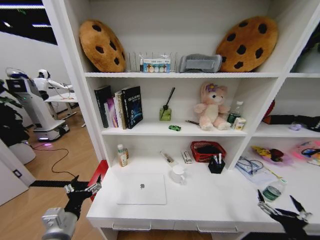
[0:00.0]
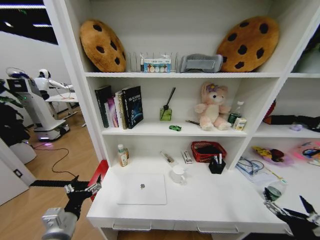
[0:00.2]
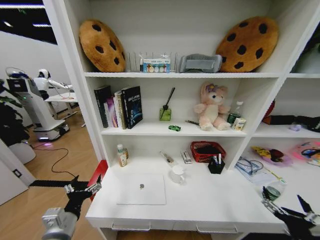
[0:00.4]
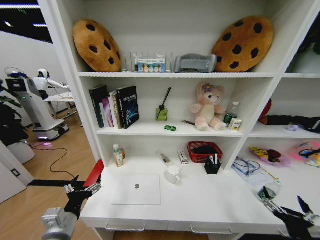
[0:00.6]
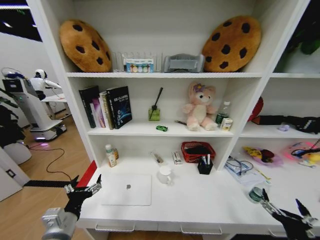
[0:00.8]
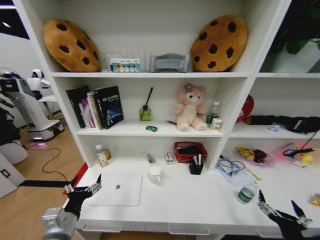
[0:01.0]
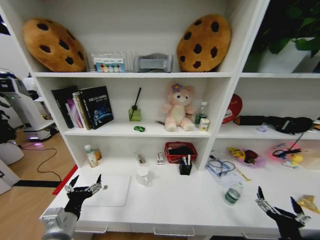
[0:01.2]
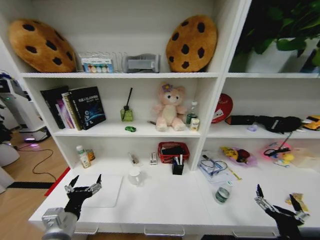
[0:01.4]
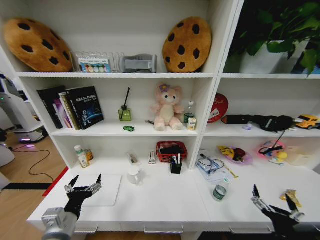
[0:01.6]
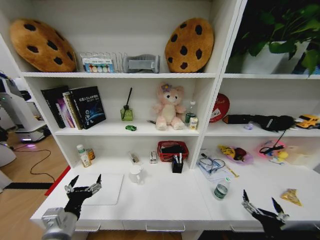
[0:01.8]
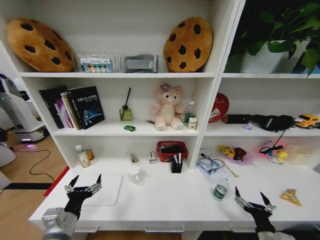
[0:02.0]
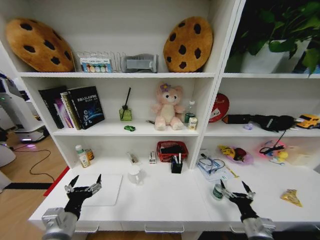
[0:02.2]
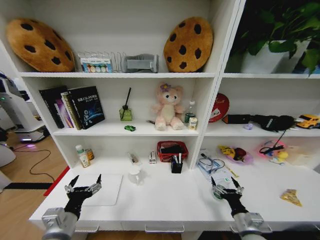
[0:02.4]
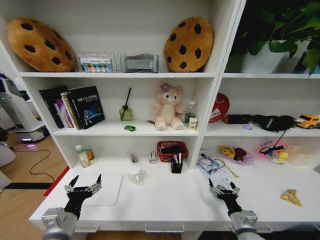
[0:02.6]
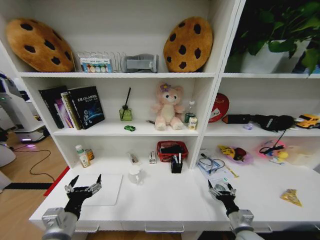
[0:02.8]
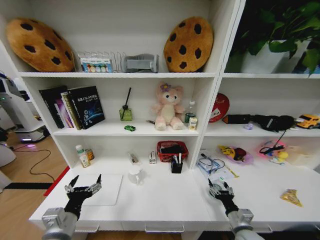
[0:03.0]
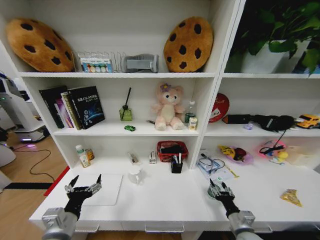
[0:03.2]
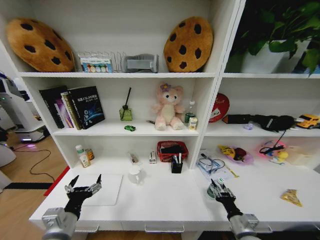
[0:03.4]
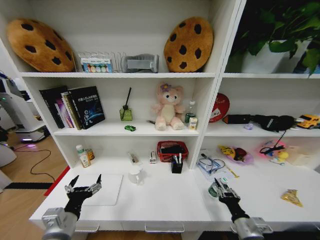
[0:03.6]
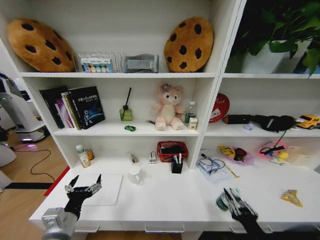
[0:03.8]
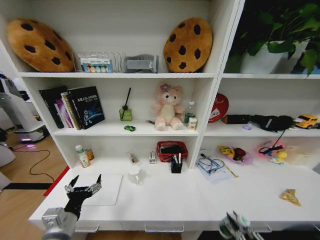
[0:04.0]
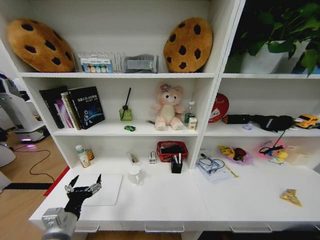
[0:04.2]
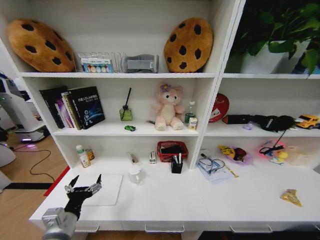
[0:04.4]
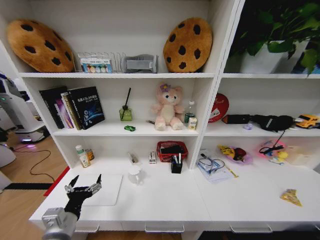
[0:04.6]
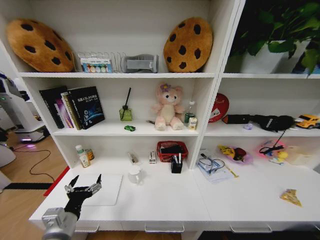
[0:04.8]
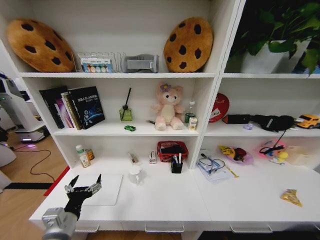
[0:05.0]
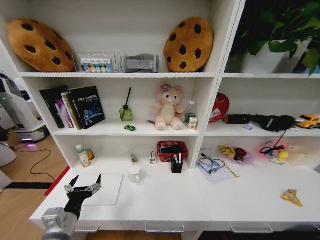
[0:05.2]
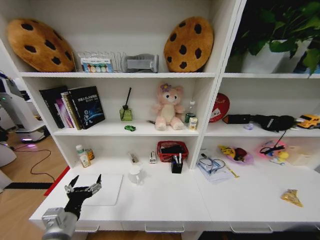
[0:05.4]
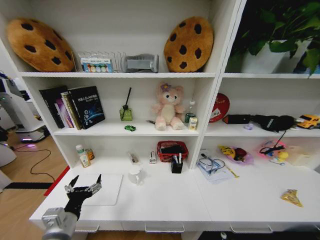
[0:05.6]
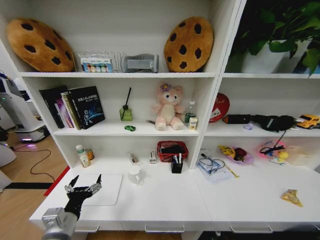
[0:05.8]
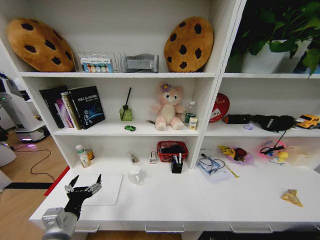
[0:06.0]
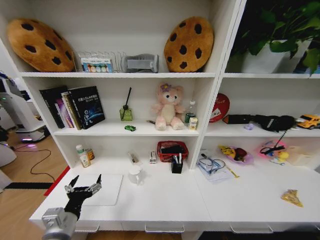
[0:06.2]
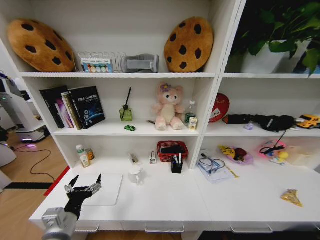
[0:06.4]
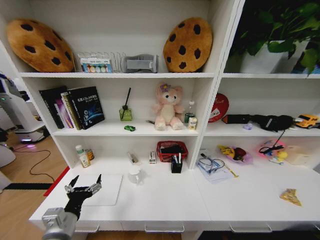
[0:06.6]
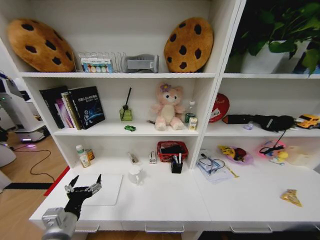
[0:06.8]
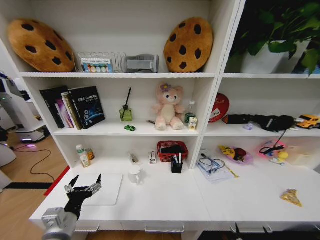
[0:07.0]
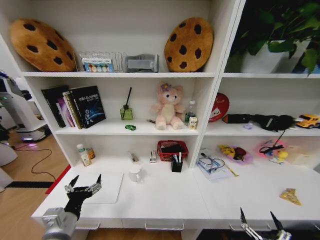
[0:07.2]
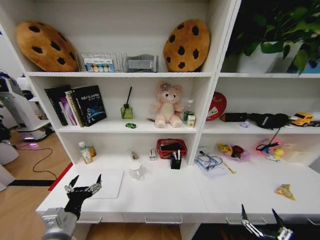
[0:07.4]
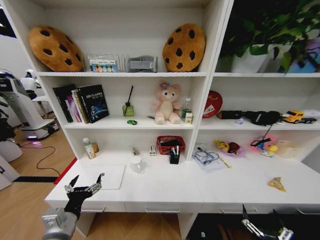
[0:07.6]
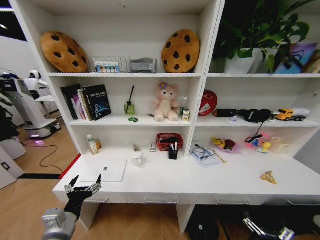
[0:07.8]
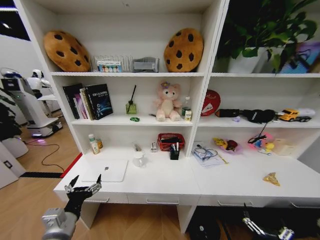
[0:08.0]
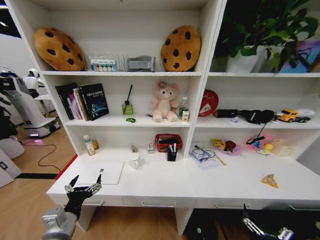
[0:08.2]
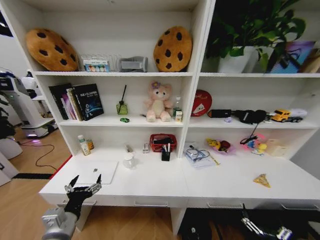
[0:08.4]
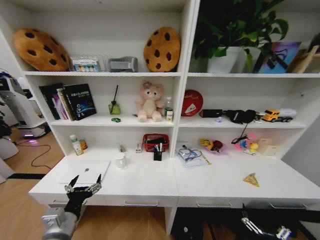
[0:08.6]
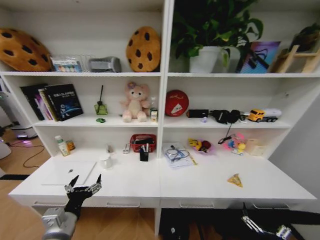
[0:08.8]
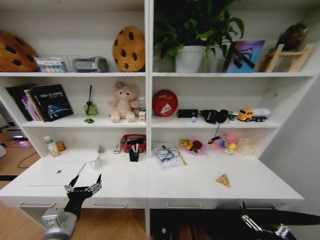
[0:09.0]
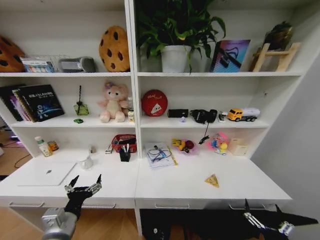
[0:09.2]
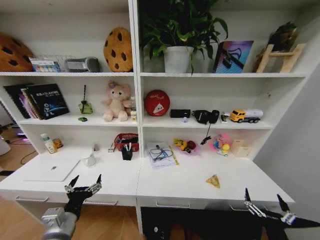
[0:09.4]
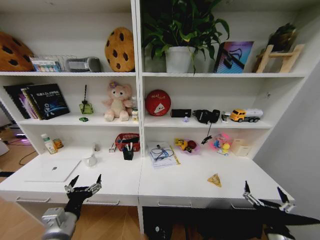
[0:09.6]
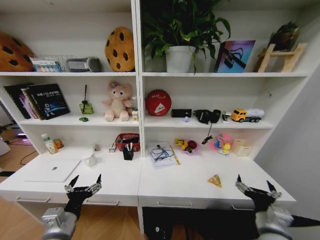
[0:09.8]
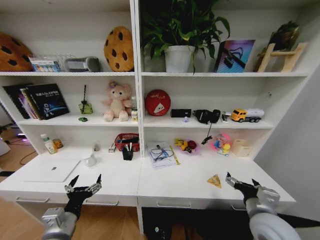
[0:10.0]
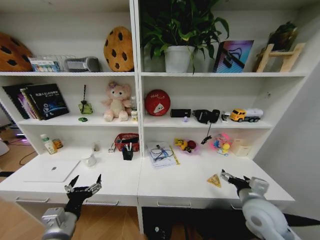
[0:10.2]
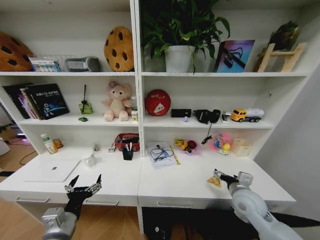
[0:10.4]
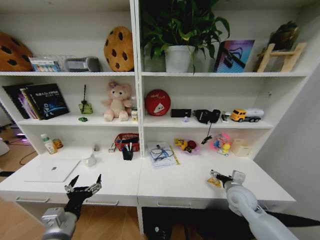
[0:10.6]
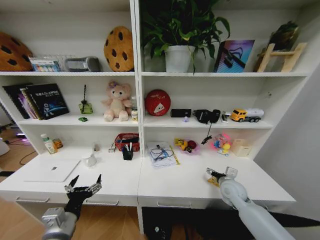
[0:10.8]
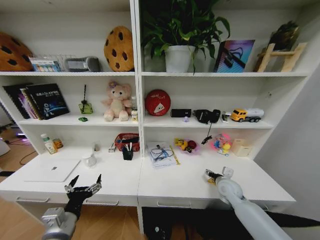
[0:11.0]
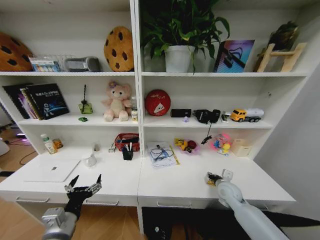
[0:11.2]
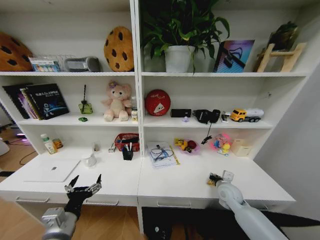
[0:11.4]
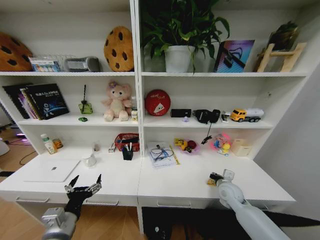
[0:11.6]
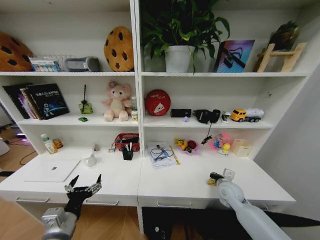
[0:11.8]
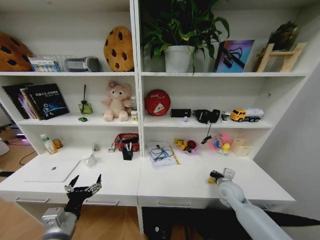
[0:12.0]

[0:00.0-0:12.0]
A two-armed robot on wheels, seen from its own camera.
Task of the whole recording: Organize the objects on the table.
0:01.6 to 0:03.0: The right gripper heads forward and downward, covering approximately 15 cm.
0:03.0 to 0:04.4: The right gripper shifts approximately 30 cm backward, and closes.
0:04.4 to 0:06.0: The right gripper goes about 30 cm downward and forward, and opens.
0:06.0 to 0:07.6: The right gripper heads upward, covering approximately 25 cm.
0:09.0 to 0:10.4: The right gripper goes approximately 30 cm forward and upward.
0:10.4 to 0:12.0: The right gripper heads downward and forward, covering approximately 10 cm, and closes its fingers.

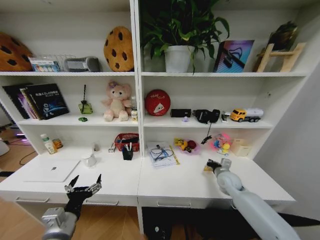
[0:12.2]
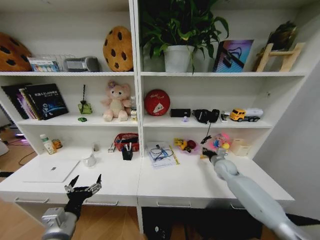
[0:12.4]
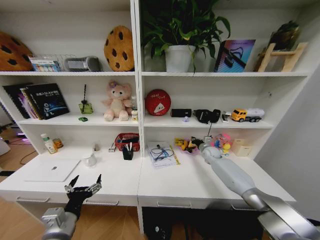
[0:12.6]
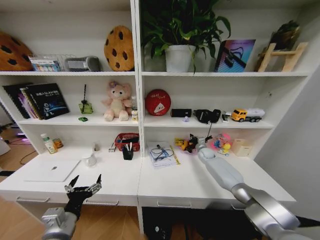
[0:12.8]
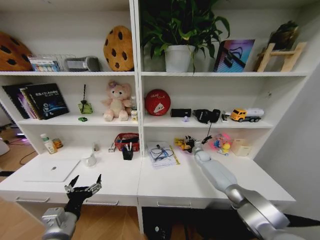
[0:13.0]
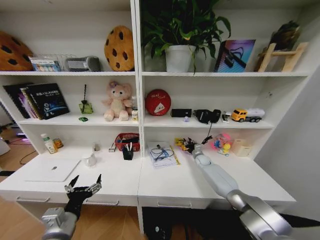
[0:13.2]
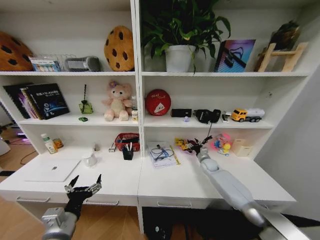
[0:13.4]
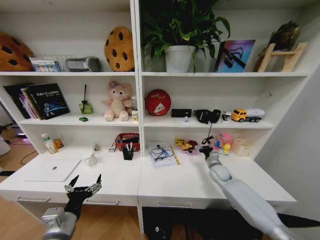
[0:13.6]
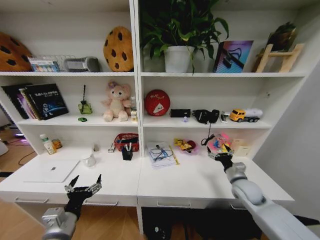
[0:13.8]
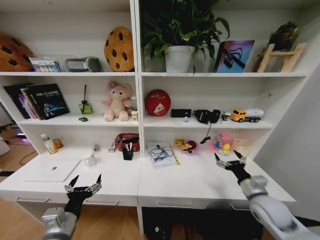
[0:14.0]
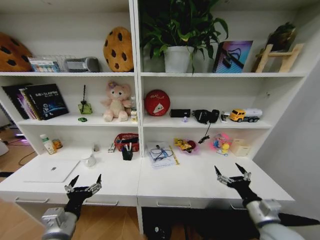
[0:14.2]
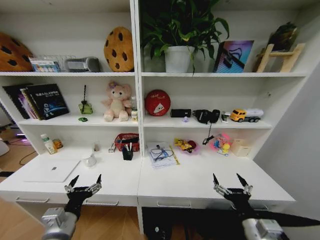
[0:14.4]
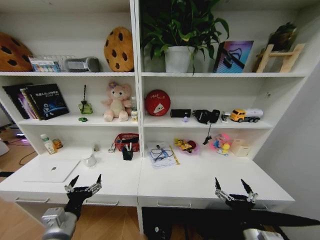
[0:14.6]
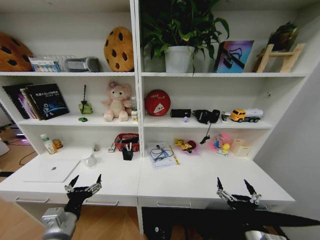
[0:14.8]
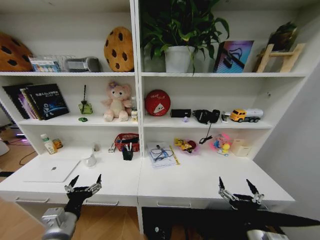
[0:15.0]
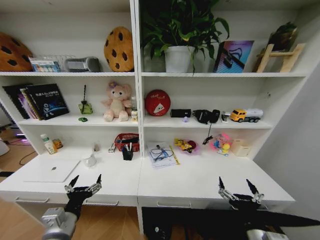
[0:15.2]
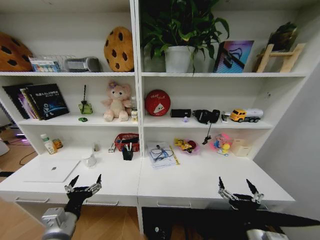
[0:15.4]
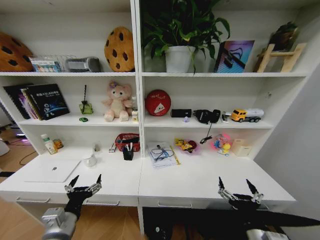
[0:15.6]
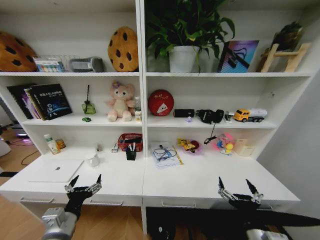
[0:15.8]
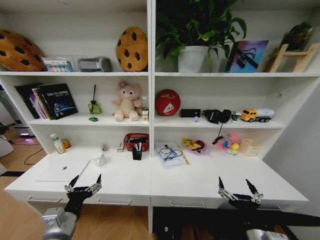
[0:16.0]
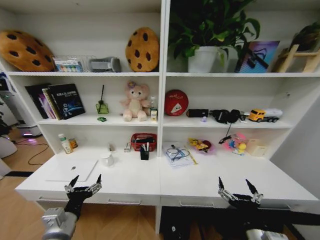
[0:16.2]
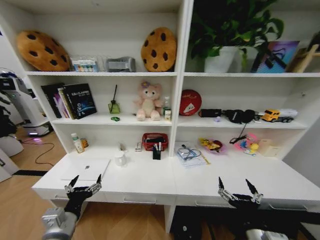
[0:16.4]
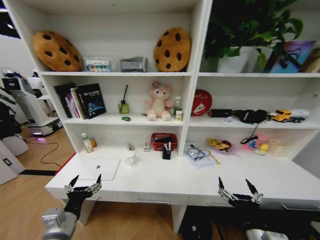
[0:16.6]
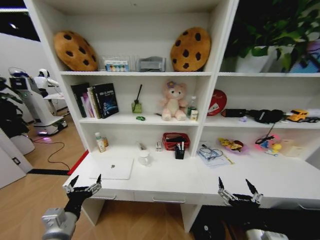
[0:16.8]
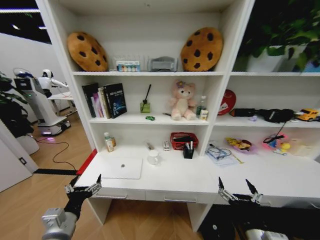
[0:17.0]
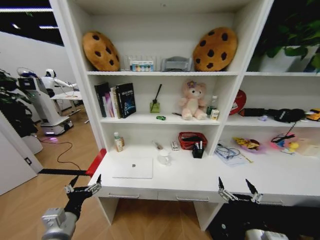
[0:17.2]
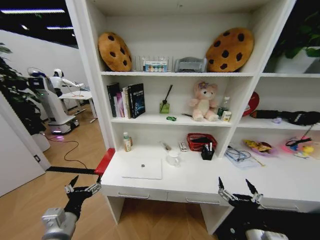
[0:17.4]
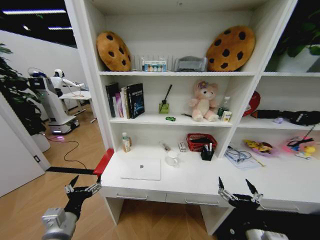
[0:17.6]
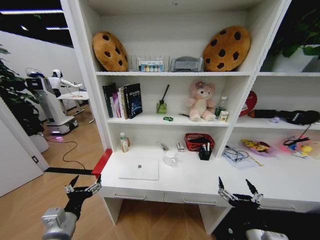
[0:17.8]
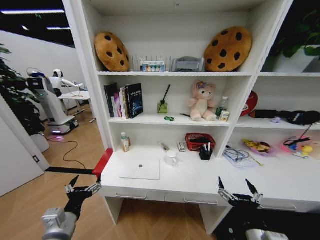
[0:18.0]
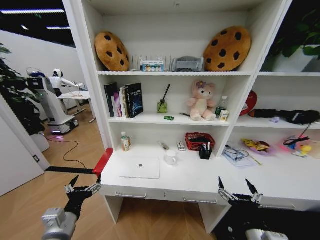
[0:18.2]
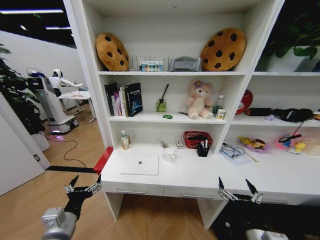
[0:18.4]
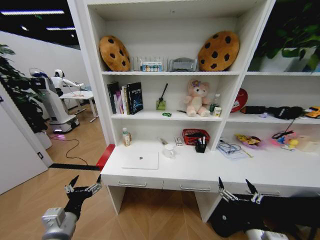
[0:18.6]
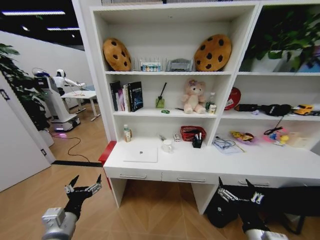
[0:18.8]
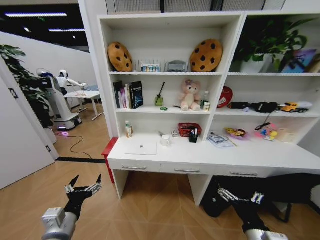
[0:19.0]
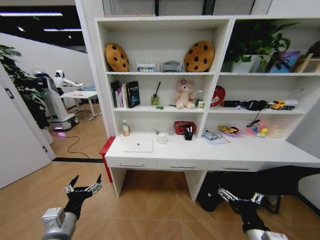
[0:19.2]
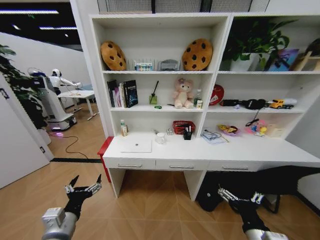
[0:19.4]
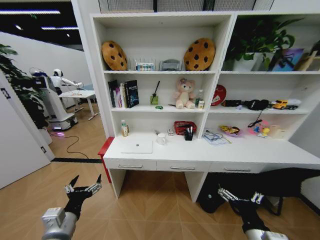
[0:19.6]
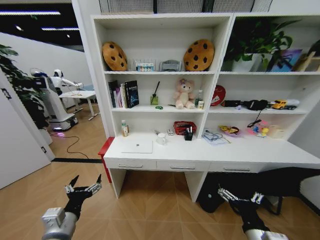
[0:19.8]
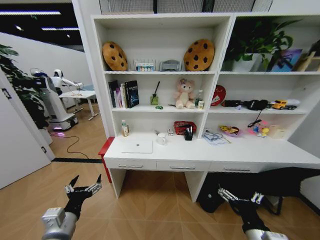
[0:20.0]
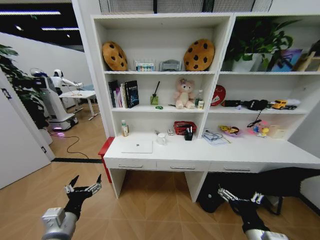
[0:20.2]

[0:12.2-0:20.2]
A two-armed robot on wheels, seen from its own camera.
Task of the whole recording: Organize the objects on the table.
0:12.2 to 0:13.8: The right gripper goes forward and returns, roughly 20 cm each way, and opens.
0:13.8 to 0:15.4: The right gripper heads backward and to the left, covering roughly 25 cm.

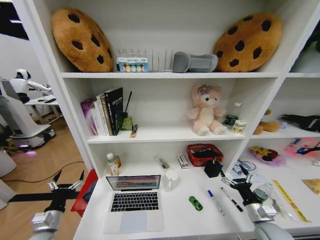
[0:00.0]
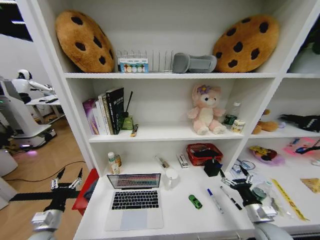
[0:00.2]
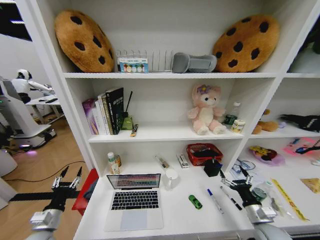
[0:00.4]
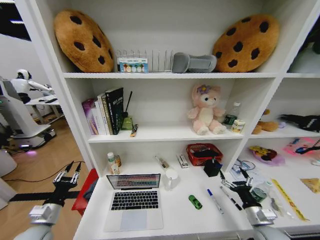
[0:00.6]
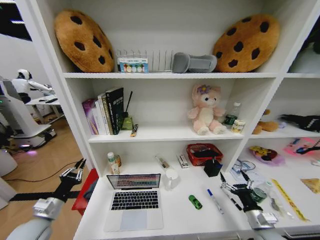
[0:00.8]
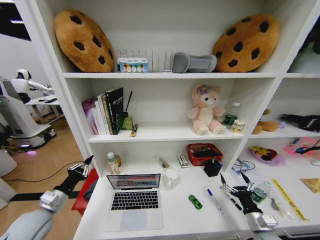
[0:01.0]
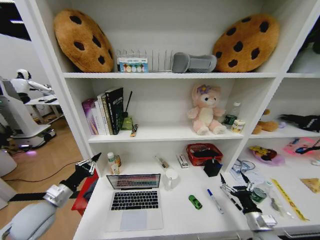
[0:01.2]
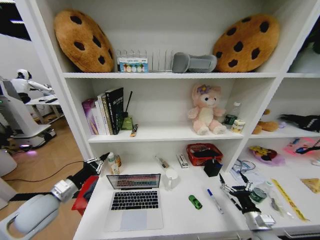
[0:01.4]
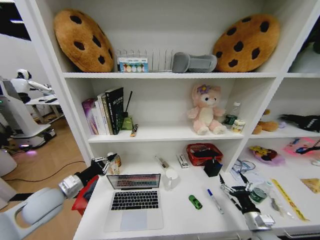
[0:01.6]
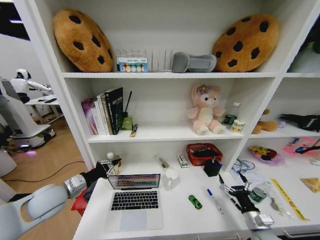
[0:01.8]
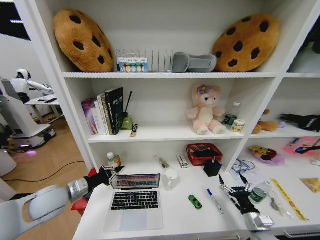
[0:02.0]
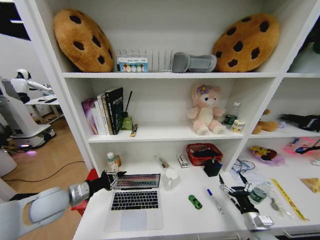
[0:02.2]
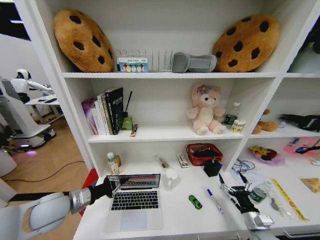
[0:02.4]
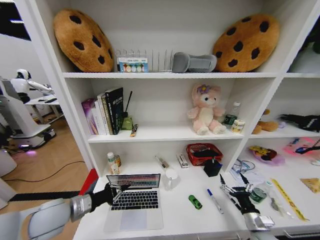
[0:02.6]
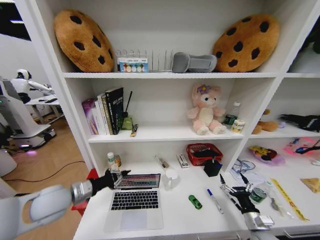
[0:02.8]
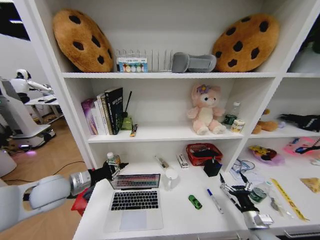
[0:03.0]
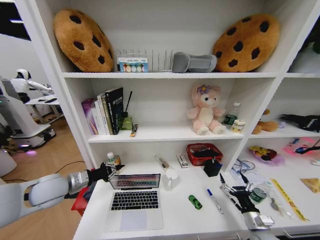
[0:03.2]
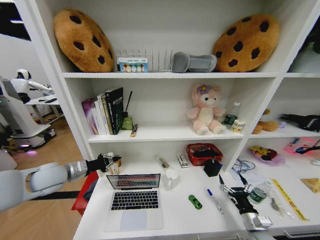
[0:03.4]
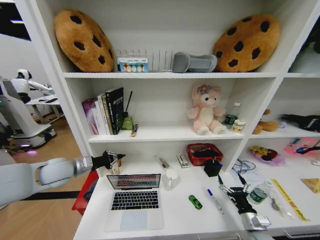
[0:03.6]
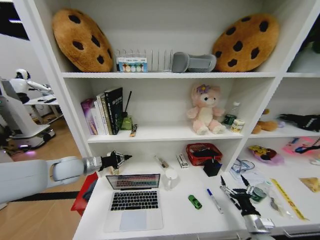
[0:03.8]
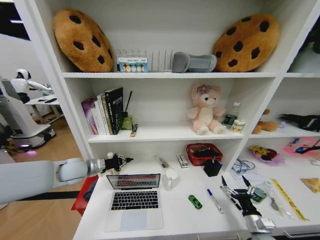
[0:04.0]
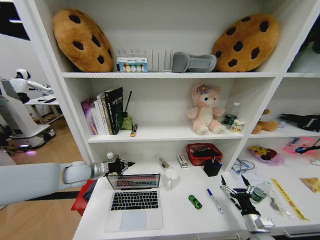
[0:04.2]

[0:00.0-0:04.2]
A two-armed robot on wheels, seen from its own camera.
Task of the whole recording: Organize the objects on the table.
0:00.0 to 0:01.4: The left gripper is displaced upward and forward by approximately 15 cm, and closes its fingers.
0:01.4 to 0:02.8: The left gripper travels to the right by roughly 5 cm.
0:02.8 to 0:04.2: The left gripper heads forward, covering about 10 cm.
